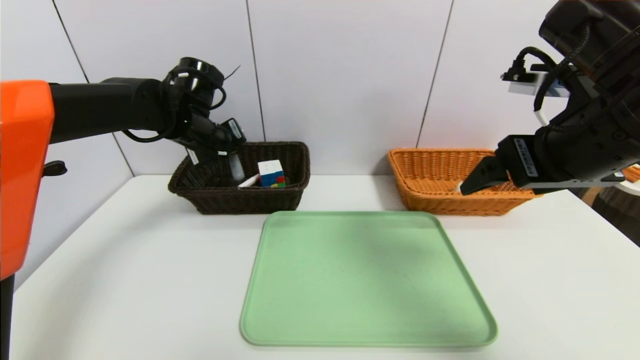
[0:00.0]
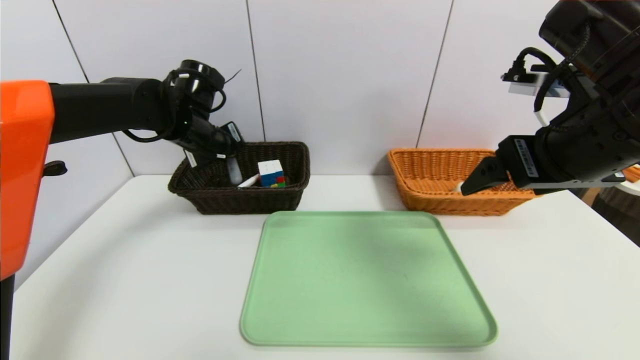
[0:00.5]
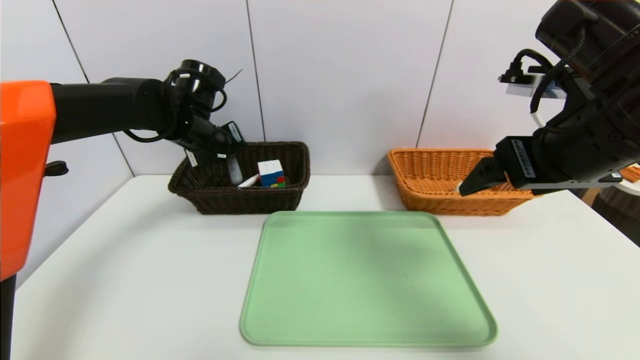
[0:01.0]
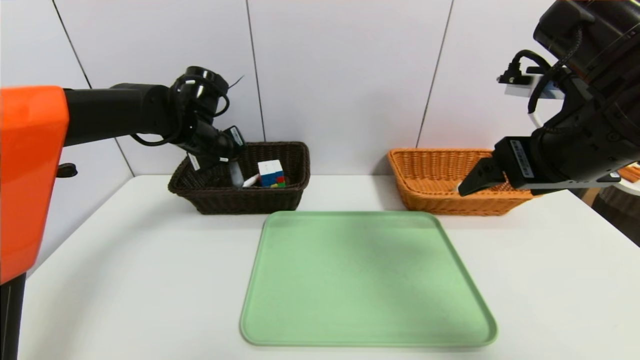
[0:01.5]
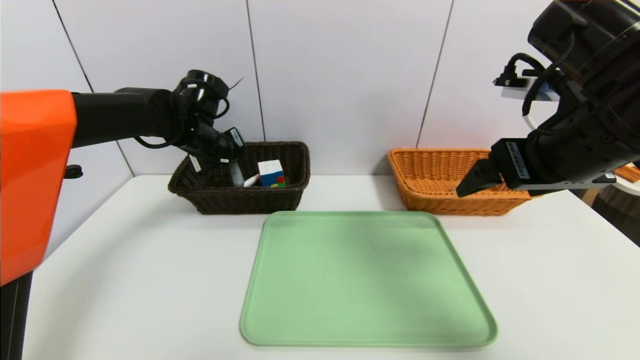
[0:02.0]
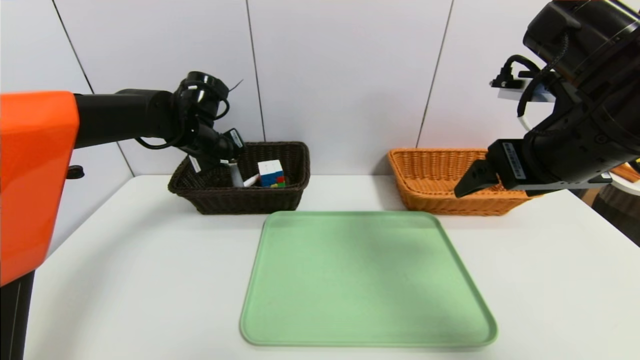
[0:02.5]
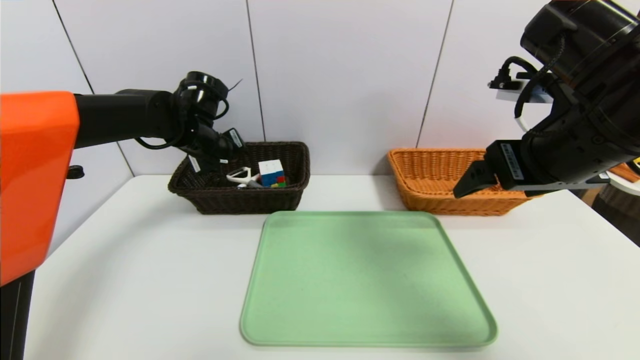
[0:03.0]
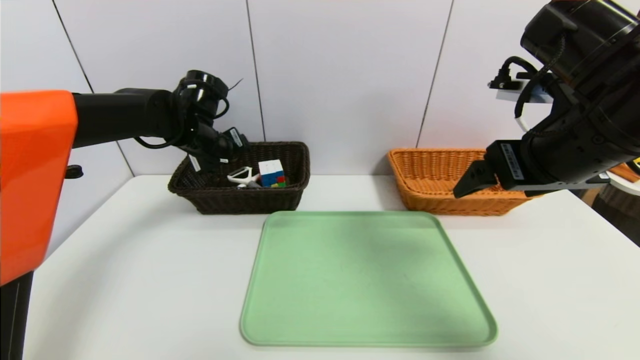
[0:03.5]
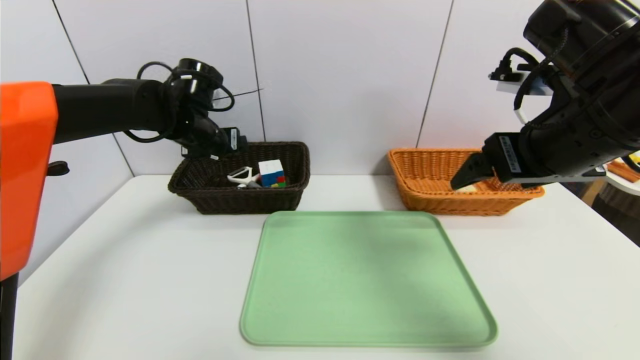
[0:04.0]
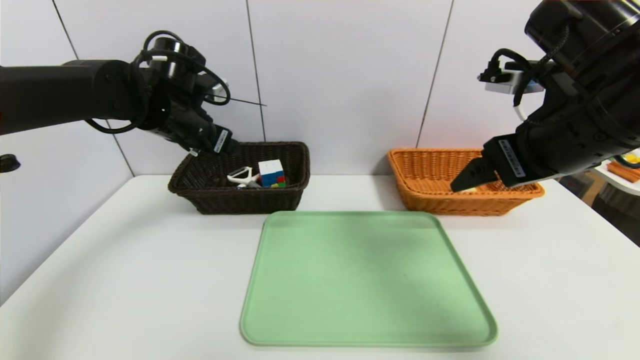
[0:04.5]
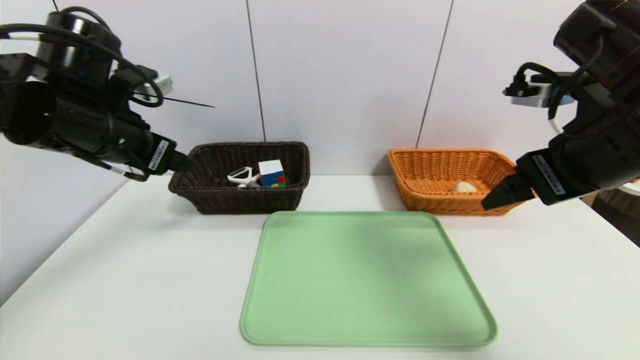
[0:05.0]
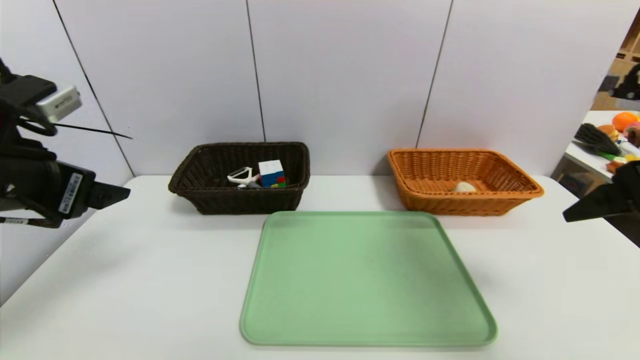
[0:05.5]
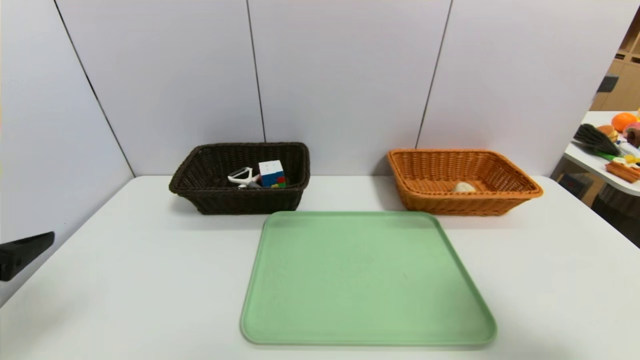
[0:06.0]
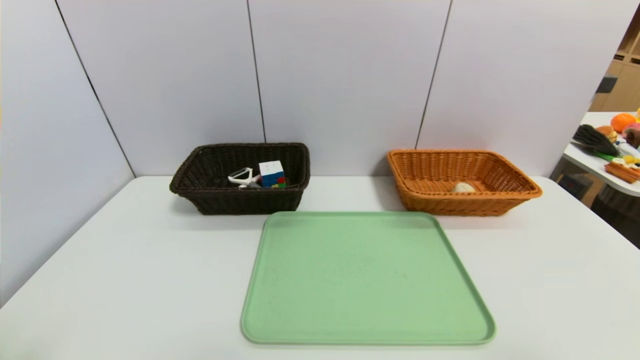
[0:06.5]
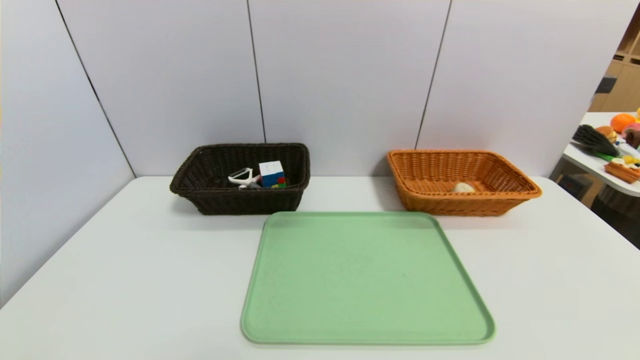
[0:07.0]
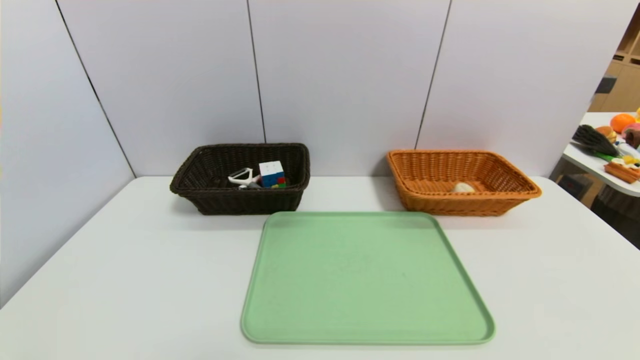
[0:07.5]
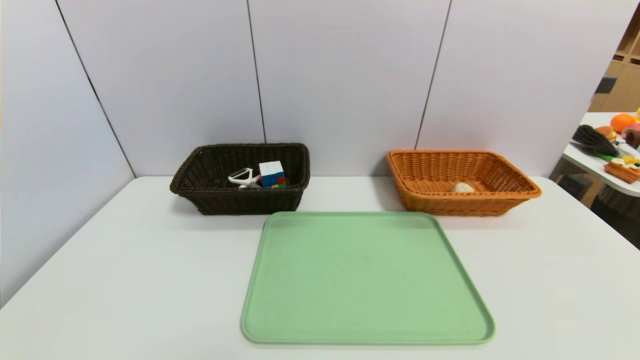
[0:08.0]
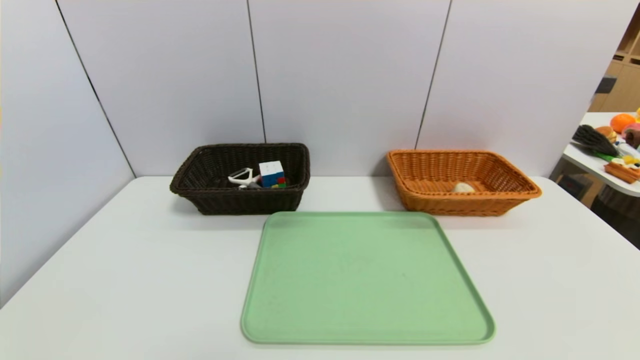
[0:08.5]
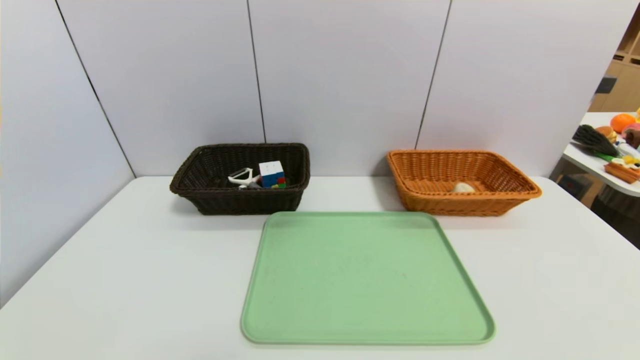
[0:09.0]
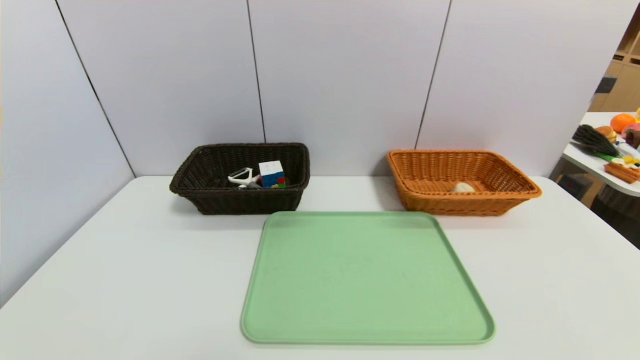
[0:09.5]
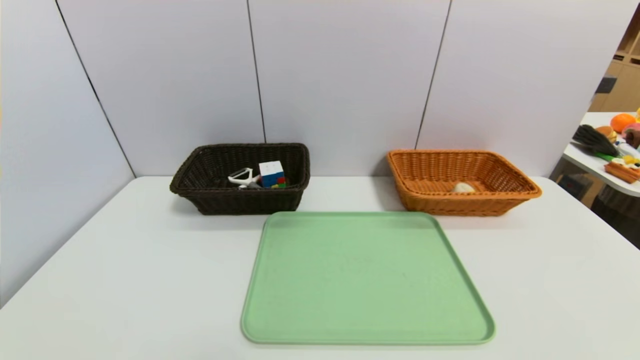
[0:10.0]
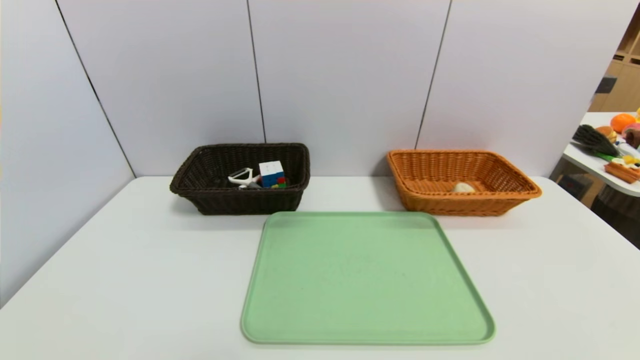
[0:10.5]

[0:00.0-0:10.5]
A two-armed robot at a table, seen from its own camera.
Task of the whole recording: place the food in the right basket with the right gripper, and place the non food items in the left basket with the left gripper.
Step, 0:00.0 to 0:03.5: Grasp the peeler and put it in the left basket.
0:00.0 to 0:02.0: The grippers stay close to where they were, moving slightly.
0:02.0 to 0:04.0: The left gripper opens up.
0:04.0 to 0:06.5: The left gripper moves backward, some 40 cm, while the right gripper shifts about 30 cm backward and to the right.

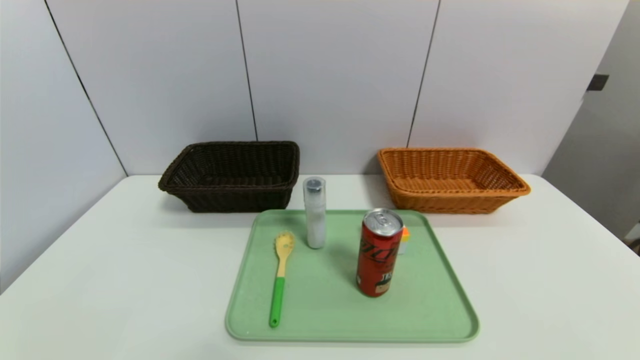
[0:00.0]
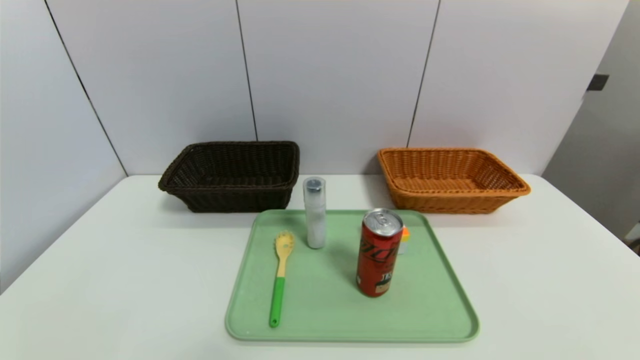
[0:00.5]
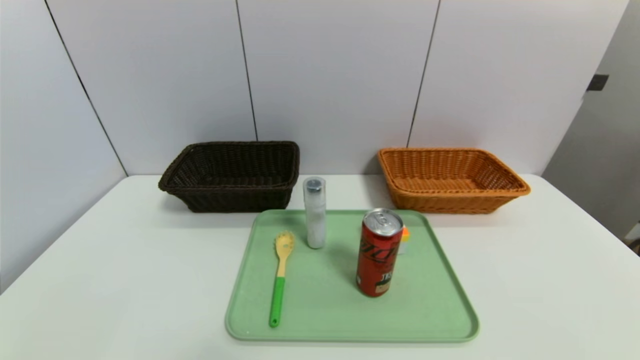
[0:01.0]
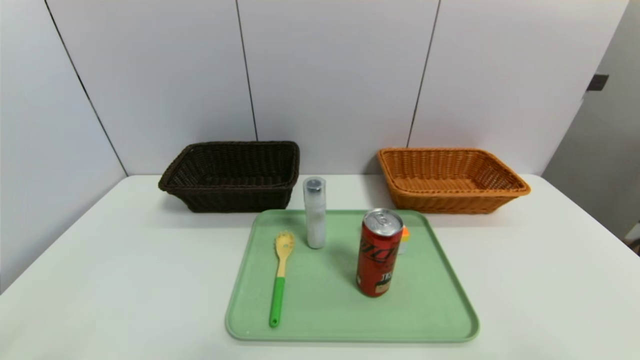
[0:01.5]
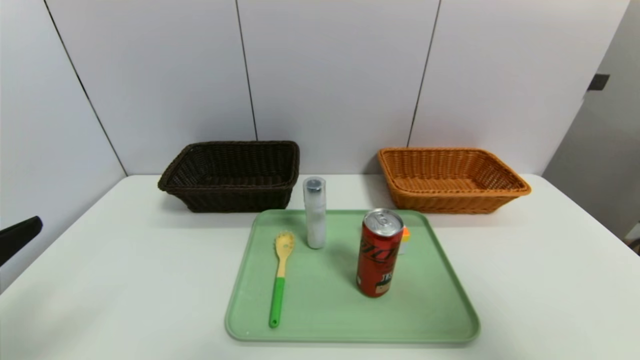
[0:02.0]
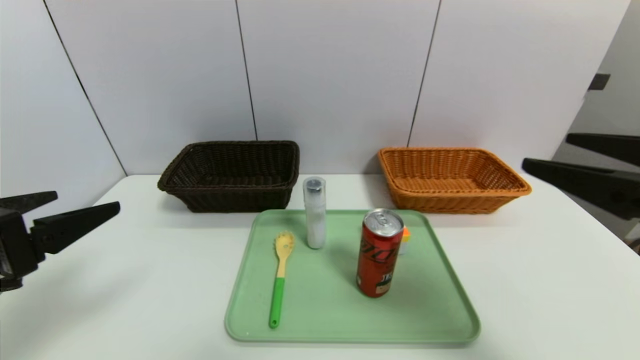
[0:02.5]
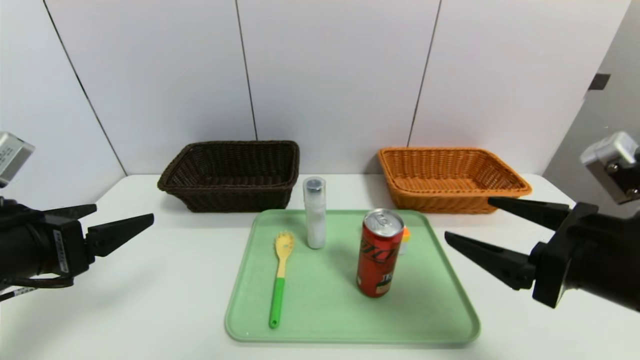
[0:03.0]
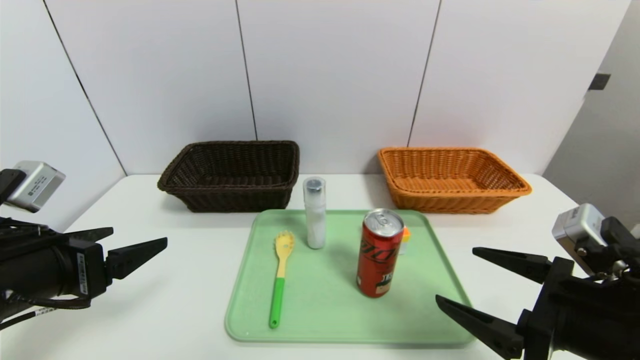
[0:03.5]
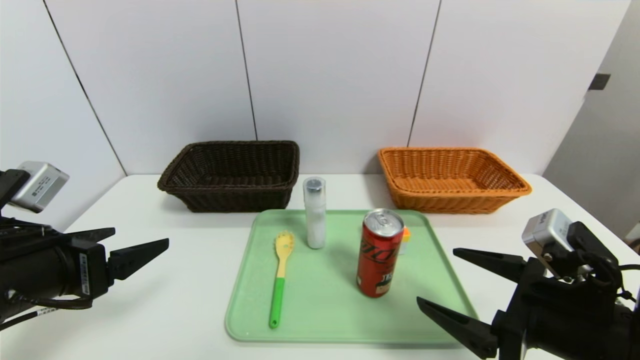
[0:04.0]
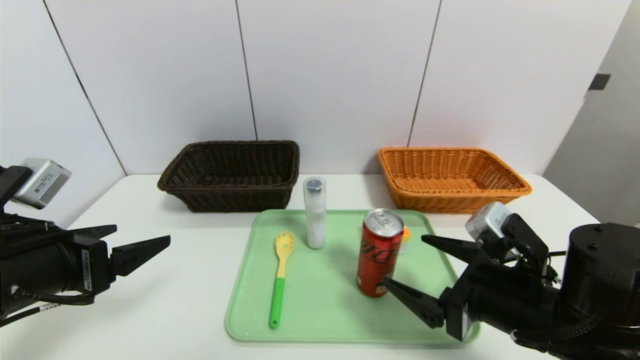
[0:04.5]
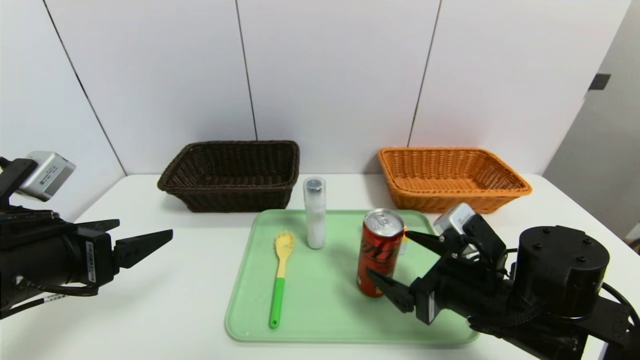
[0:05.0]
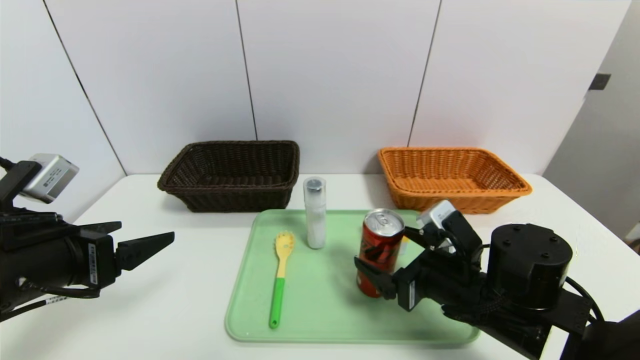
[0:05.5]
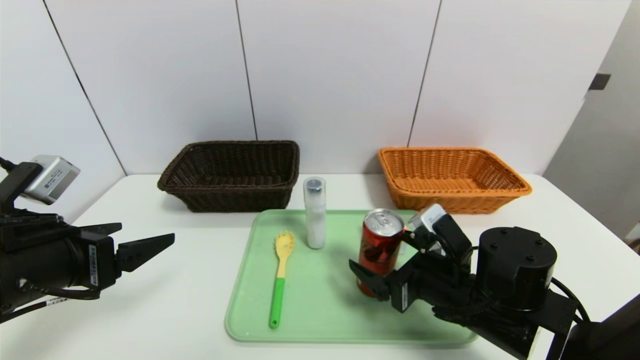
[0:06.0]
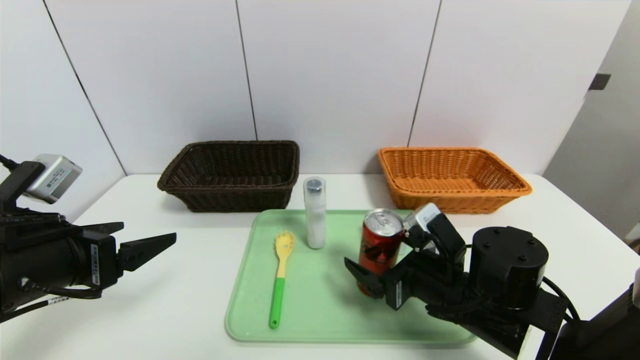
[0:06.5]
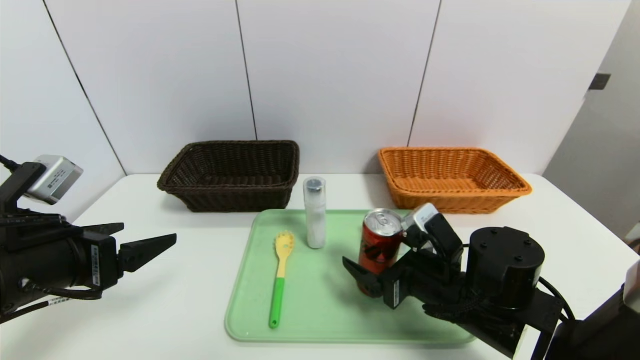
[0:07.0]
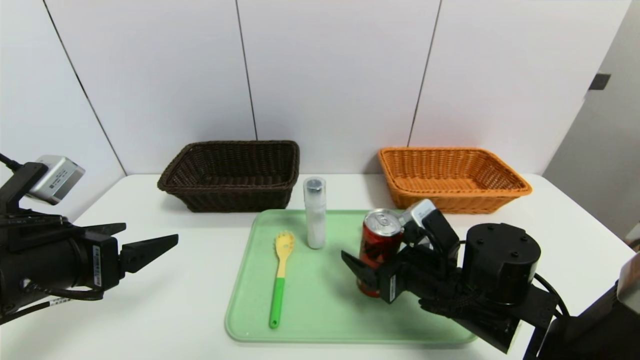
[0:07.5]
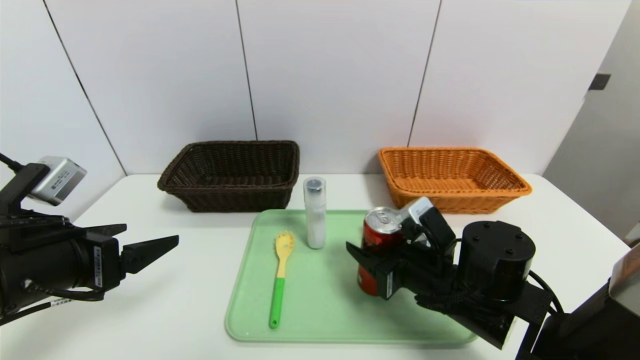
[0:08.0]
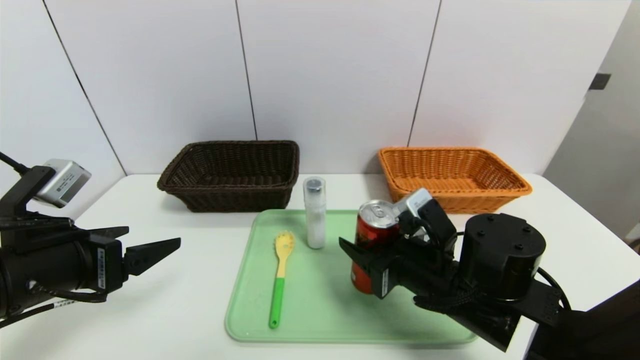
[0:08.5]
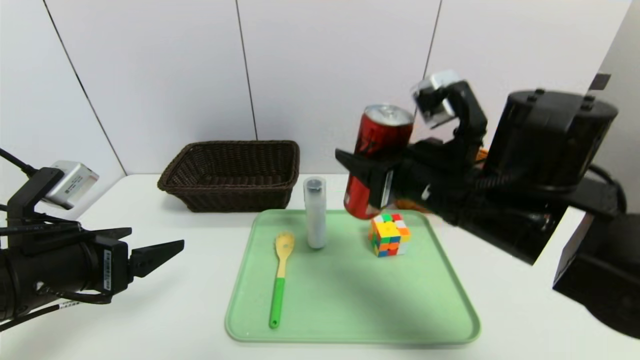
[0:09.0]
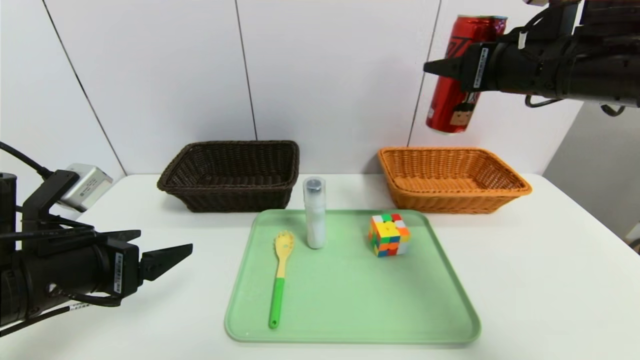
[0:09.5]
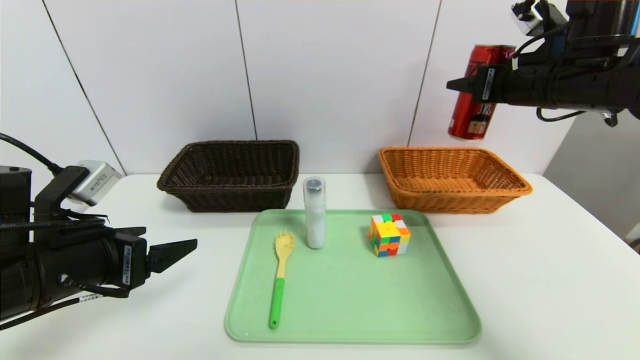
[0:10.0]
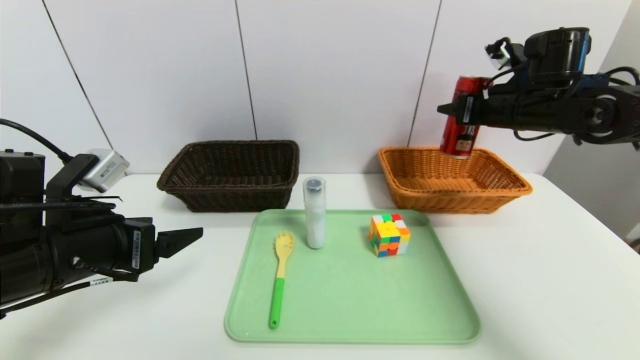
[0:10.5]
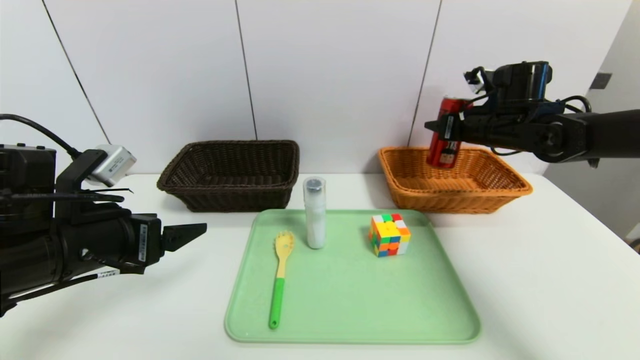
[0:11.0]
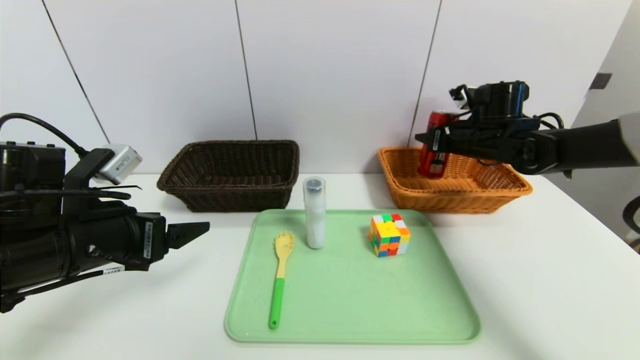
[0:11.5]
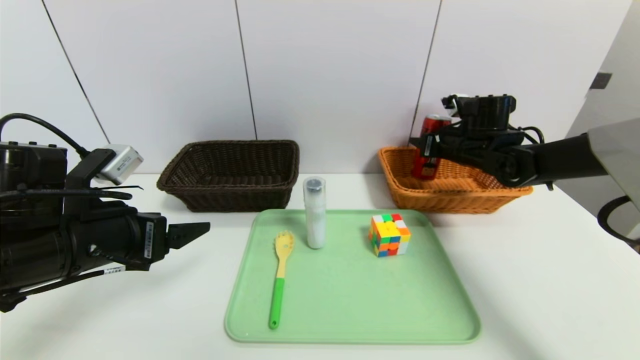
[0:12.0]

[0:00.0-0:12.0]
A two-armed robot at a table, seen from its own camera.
Task of the whole recording: place the food in the right basket with the right gripper, and place the non food items in the left basket with the left gripper.
0:00.0 to 0:02.0: The right gripper heads upward, covering approximately 25 cm; the left gripper shifts roughly 20 cm upward and forward.
0:02.0 to 0:04.0: The right gripper is displaced downward and to the left by roughly 20 cm, while the left gripper is displaced forward and downward by about 10 cm.
0:04.0 to 0:06.0: The right gripper goes about 10 cm forward, to the left and downward.
0:06.0 to 0:08.0: The right gripper closes its fingers.
0:08.0 to 0:10.0: The right gripper shifts roughly 30 cm upward, to the right and forward.
0:10.0 to 0:12.0: The right gripper heads downward and forward, covering some 15 cm.
